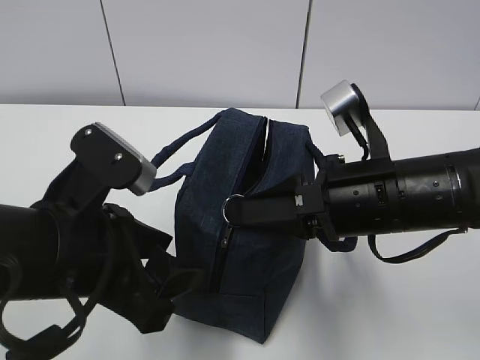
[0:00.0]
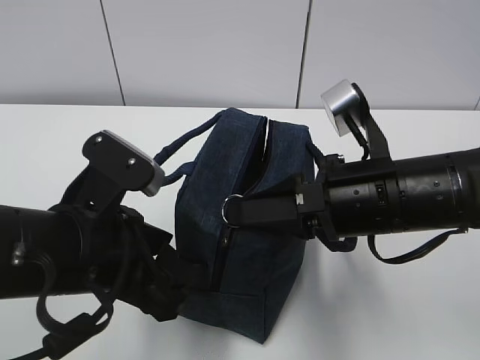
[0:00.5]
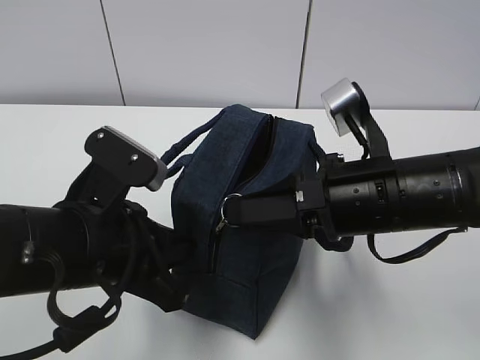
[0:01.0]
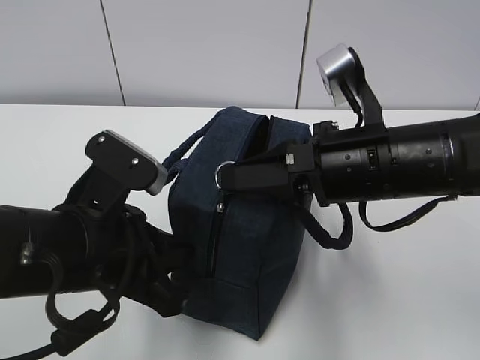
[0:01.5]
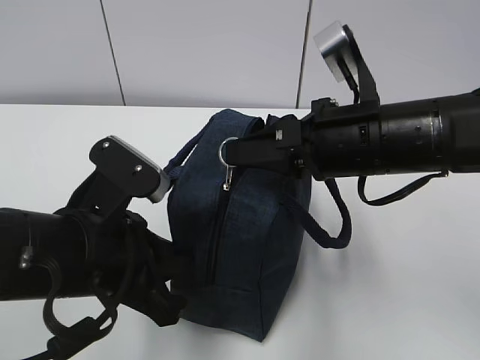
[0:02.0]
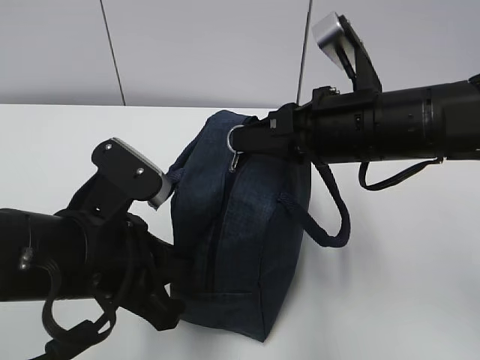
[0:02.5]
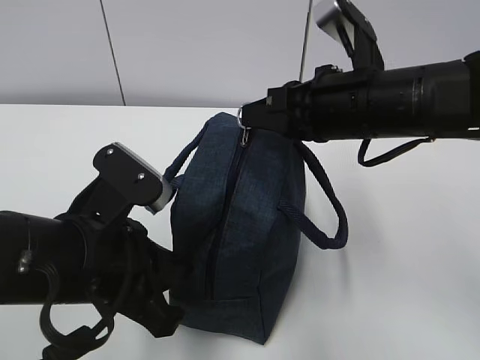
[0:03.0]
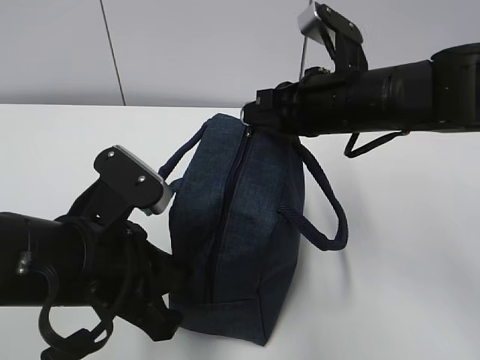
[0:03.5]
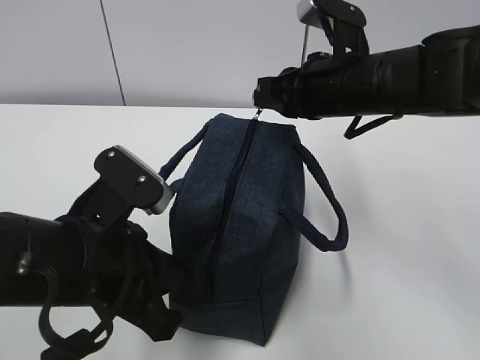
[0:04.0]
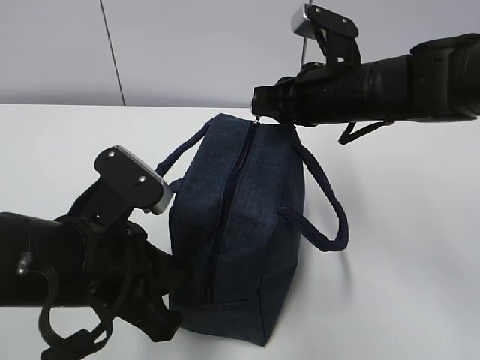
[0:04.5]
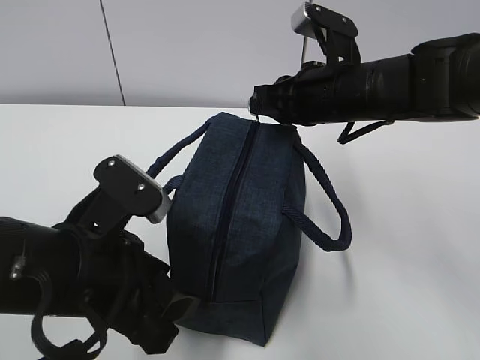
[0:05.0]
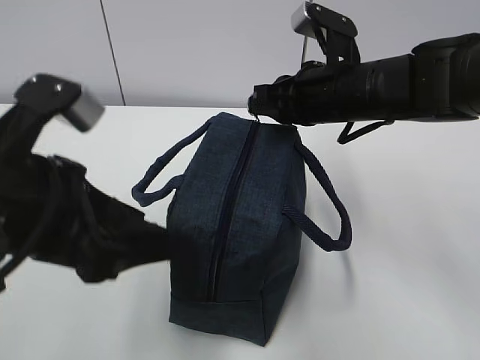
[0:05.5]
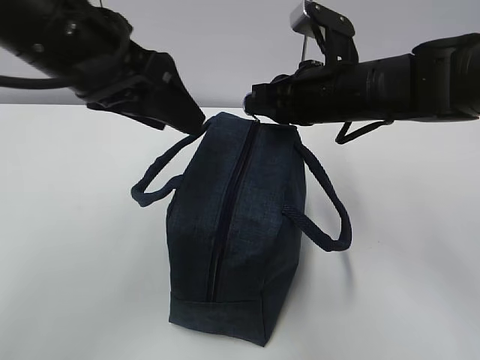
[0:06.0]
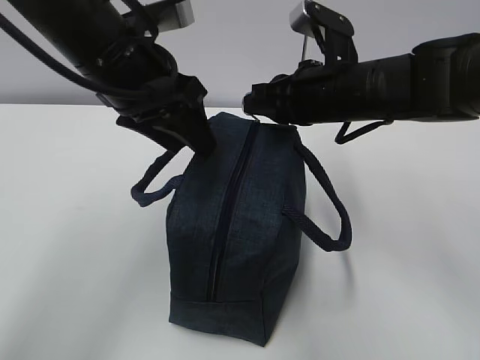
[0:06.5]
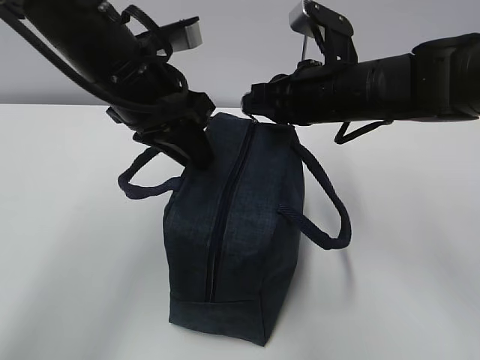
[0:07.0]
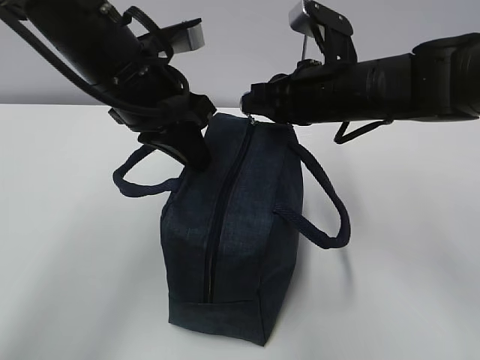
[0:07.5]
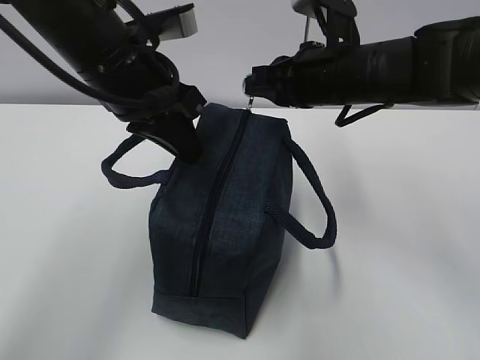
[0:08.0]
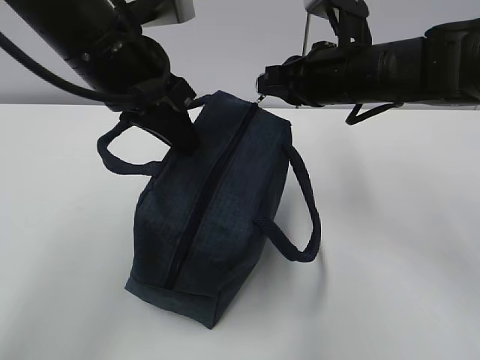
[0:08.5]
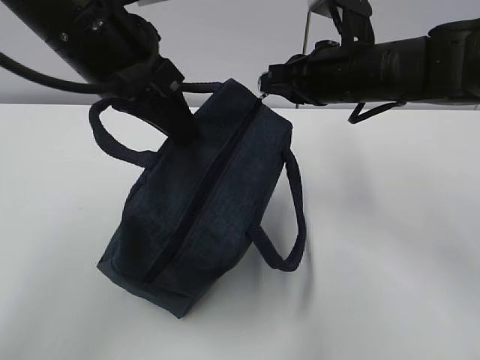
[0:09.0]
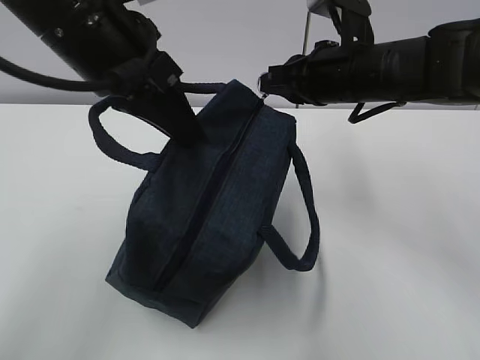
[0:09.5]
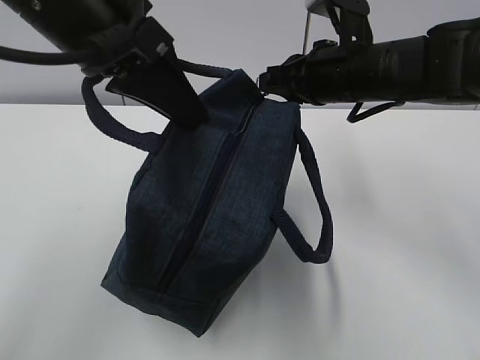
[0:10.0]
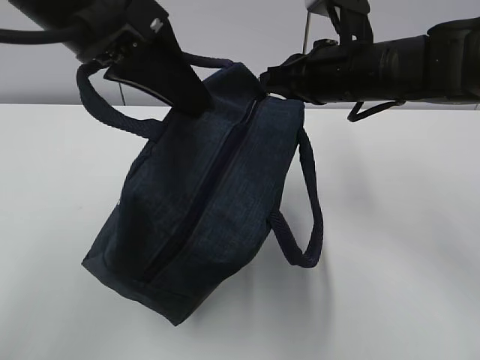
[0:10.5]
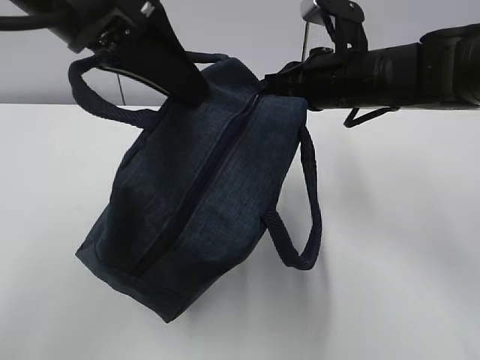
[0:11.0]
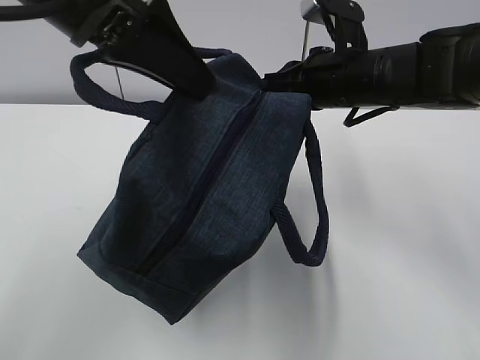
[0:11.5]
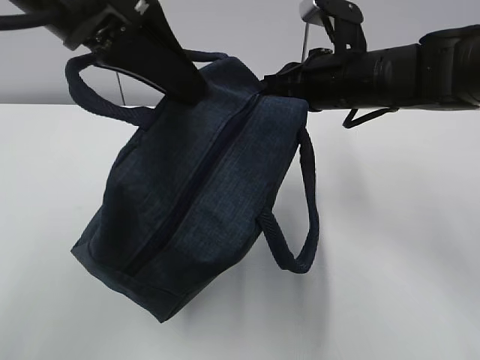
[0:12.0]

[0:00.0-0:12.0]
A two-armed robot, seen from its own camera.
Step, 0:00.5 to 0:02.5: Grab the lunch bag with your left hand.
0:00.0 to 0:02.0: The left gripper closes.
0:02.0 to 0:04.0: The right gripper moves forward, approximately 10 cm.
0:04.0 to 0:06.0: The left gripper travels upward and forward by roughly 15 cm, and opens its fingers.
0:06.0 to 0:08.0: The left gripper shifts by roughly 5 cm, and closes up.
0:08.0 to 0:10.0: The left gripper goes some 5 cm upward.
0:10.0 to 0:12.0: The grippers move only a little.

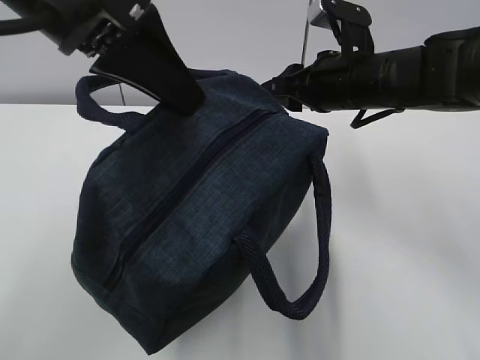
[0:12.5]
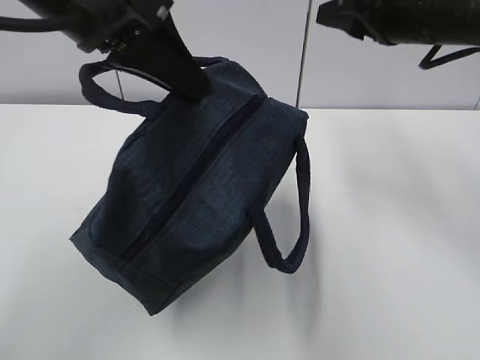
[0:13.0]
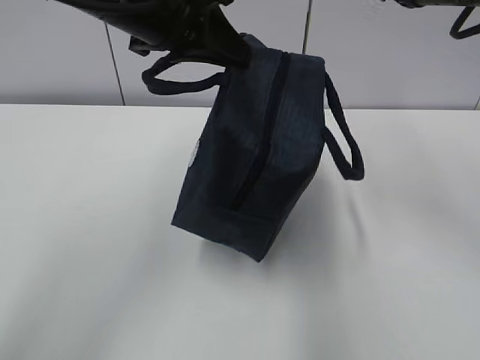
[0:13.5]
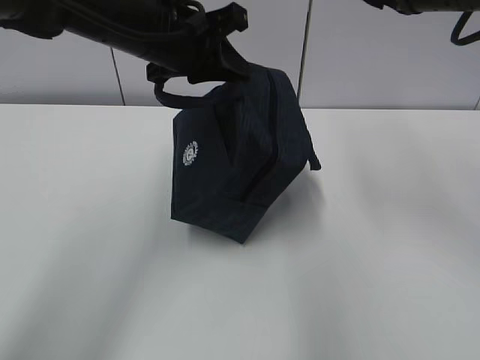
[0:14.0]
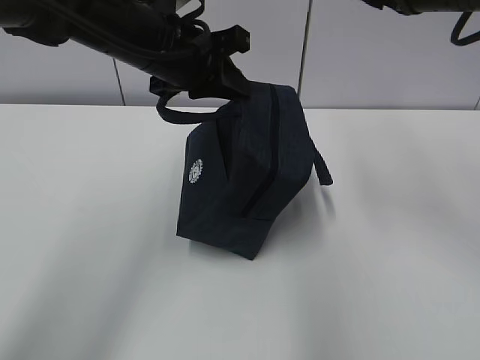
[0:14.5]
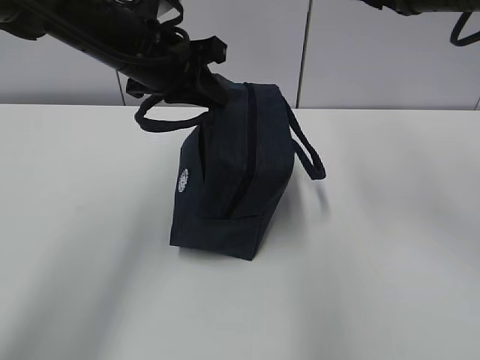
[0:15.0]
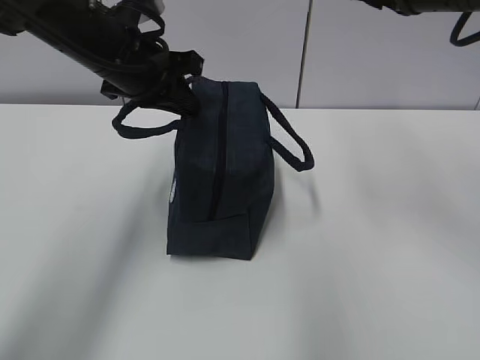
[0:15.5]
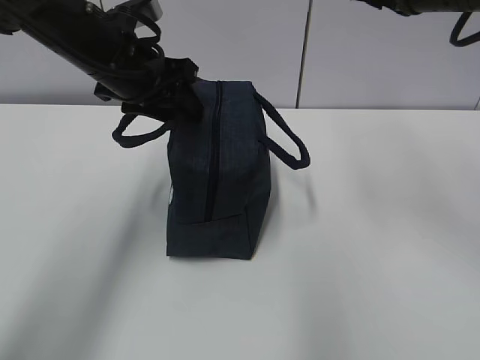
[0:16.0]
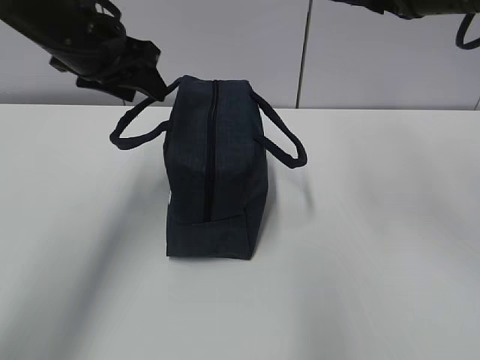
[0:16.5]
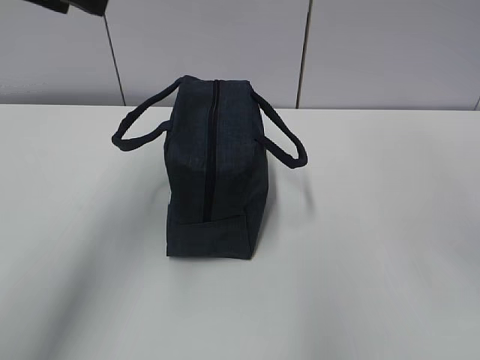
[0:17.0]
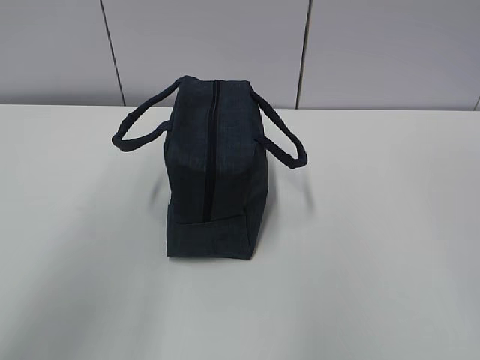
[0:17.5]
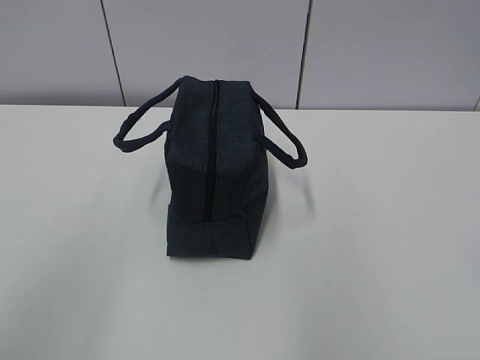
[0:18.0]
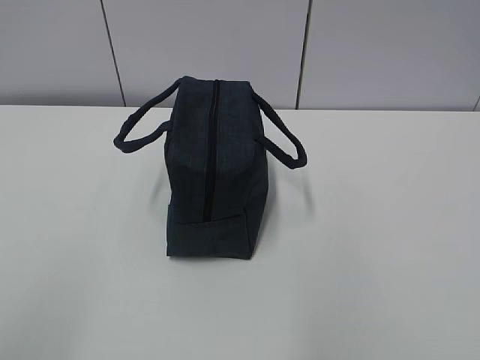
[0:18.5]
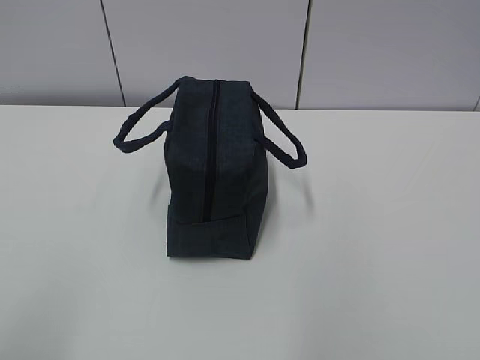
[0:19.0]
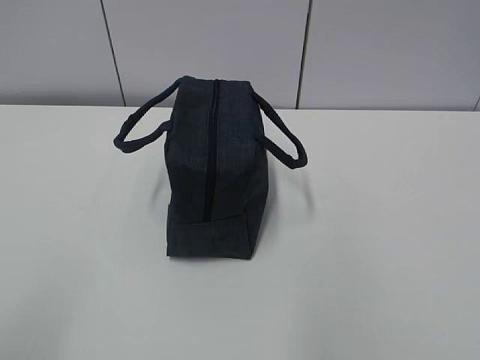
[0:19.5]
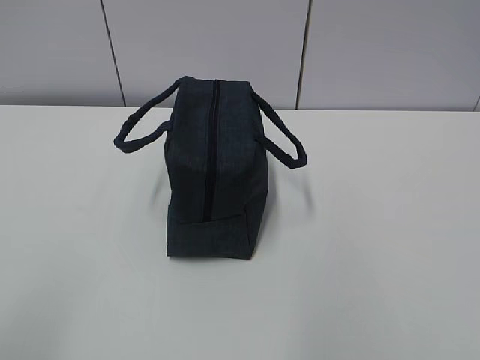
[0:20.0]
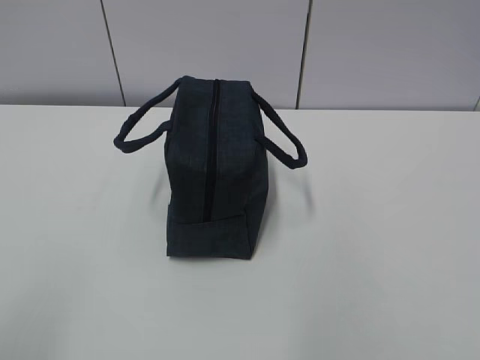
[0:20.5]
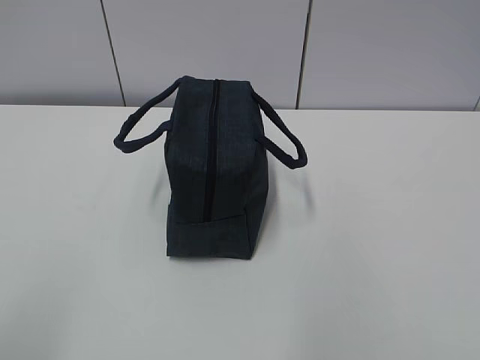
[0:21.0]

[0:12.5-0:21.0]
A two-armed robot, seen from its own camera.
0:12.5 to 0:14.5: The left gripper shifts some 15 cm forward and downward, while the right gripper heads upward and to the right, covering roughly 15 cm.
0:14.5 to 0:16.5: The left gripper goes some 10 cm to the left, and opens.
0:16.5 to 0:19.0: The grippers both shift backward by about 35 cm.
